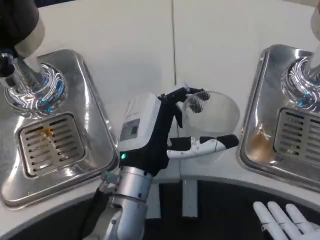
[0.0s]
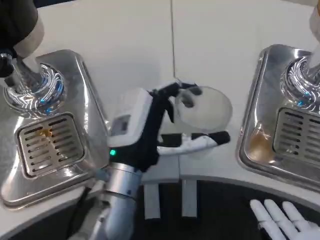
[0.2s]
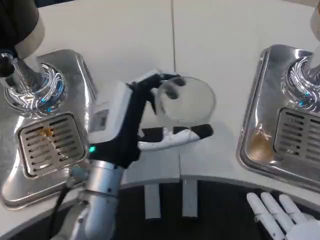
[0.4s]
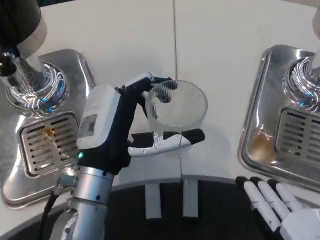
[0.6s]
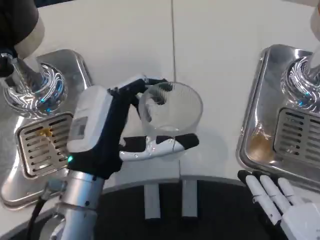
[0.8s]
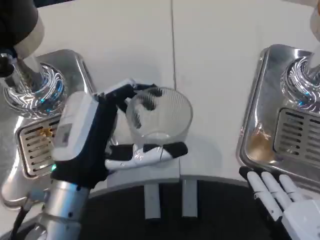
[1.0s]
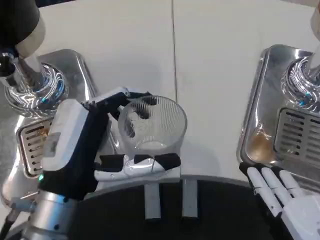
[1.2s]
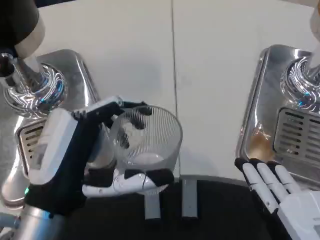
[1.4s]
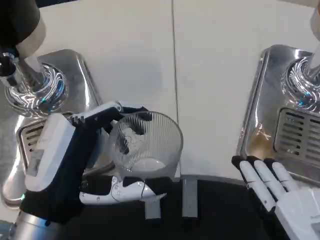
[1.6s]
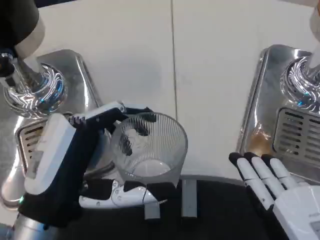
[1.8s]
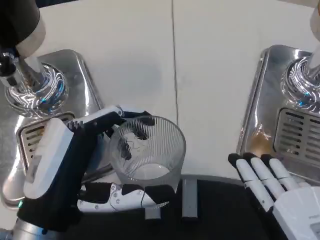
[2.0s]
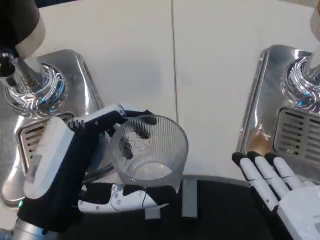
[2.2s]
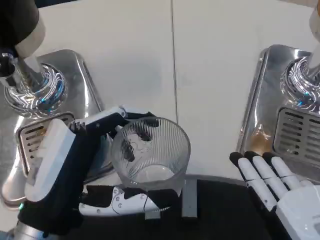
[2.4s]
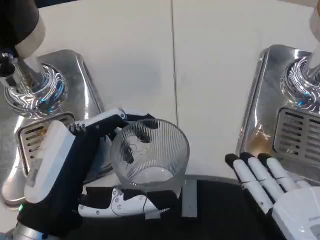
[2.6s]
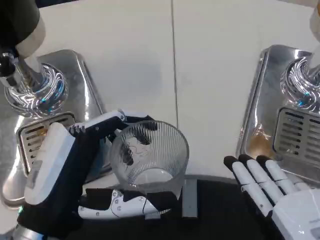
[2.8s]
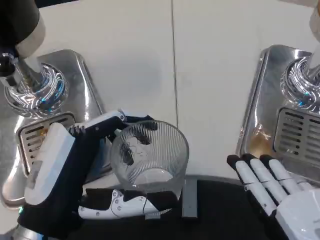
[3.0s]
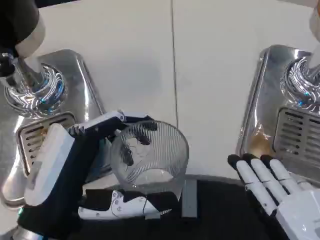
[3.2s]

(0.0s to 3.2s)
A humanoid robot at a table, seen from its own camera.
Task of the whole recording: Grasp the cup under the faucet to collect the drink, then remove the cup.
0.0s - 1.6s: The left hand heads to the left and backward, covering about 15 cm.
1.6s - 3.2s: The hands stay close to where they were, moving slightly.

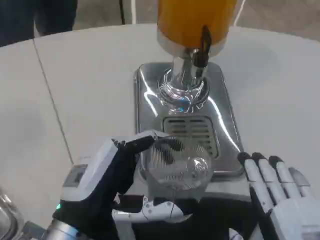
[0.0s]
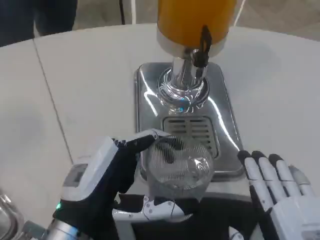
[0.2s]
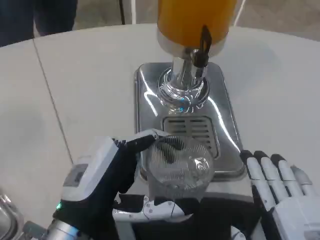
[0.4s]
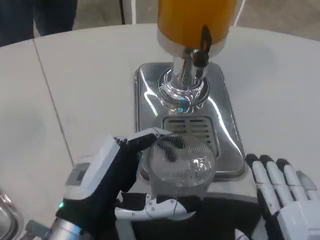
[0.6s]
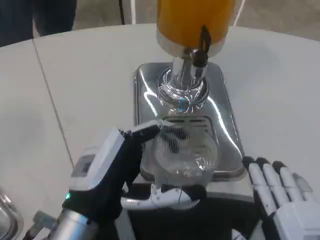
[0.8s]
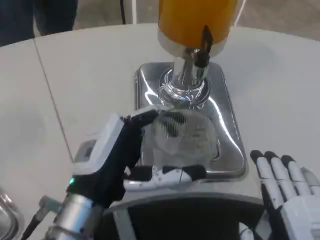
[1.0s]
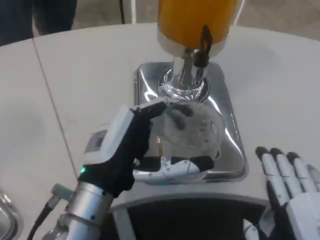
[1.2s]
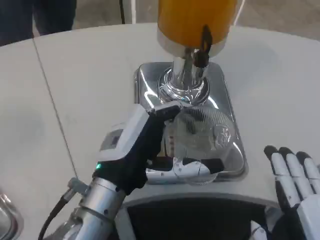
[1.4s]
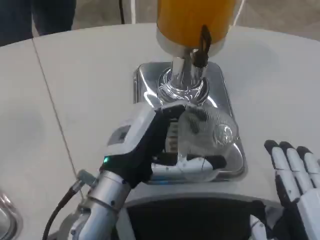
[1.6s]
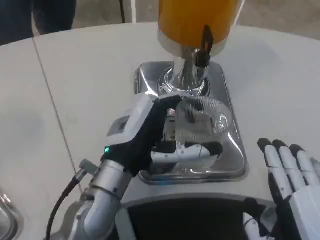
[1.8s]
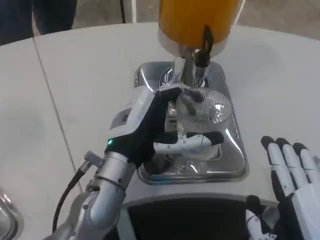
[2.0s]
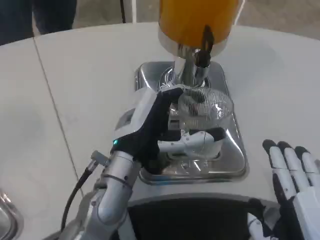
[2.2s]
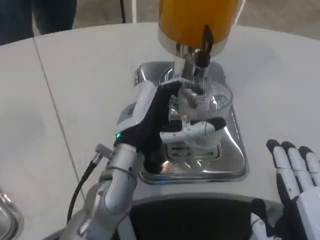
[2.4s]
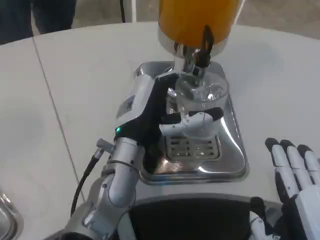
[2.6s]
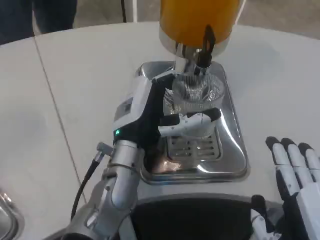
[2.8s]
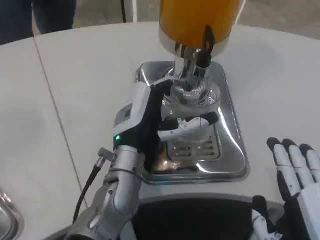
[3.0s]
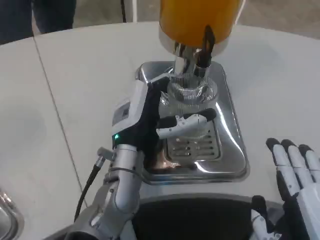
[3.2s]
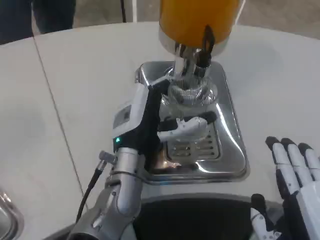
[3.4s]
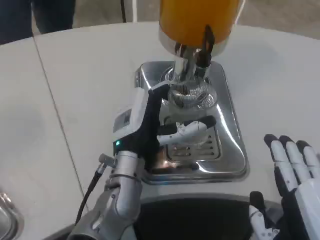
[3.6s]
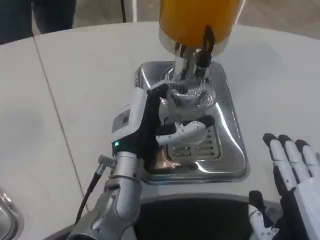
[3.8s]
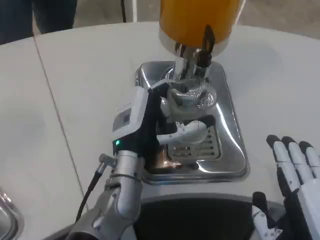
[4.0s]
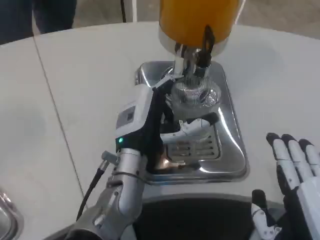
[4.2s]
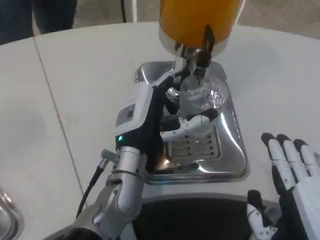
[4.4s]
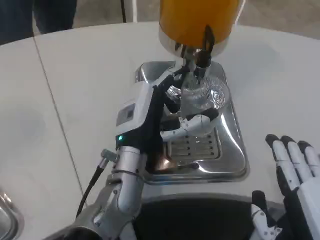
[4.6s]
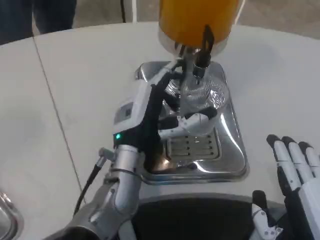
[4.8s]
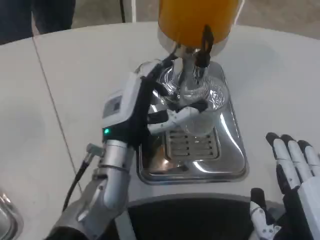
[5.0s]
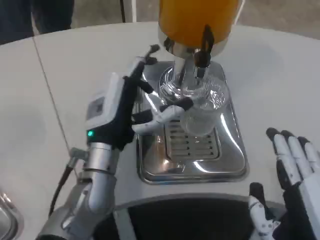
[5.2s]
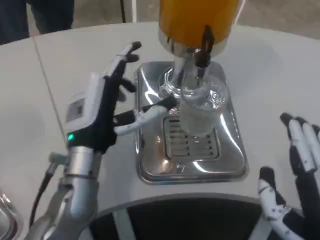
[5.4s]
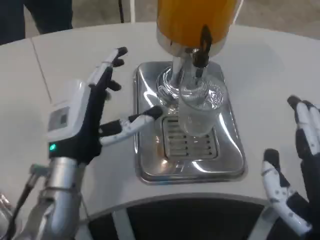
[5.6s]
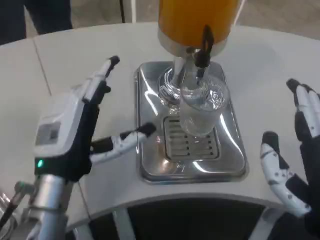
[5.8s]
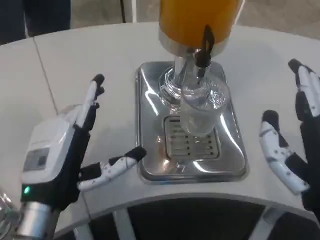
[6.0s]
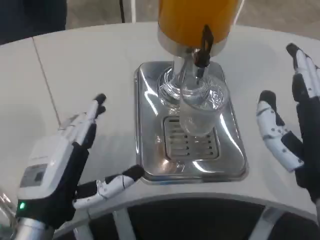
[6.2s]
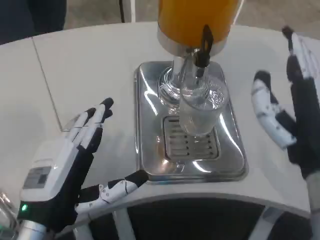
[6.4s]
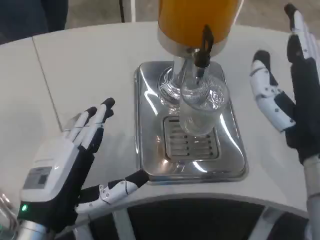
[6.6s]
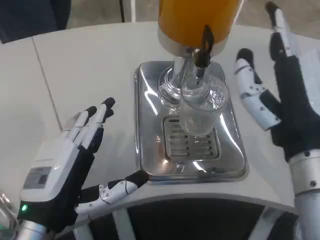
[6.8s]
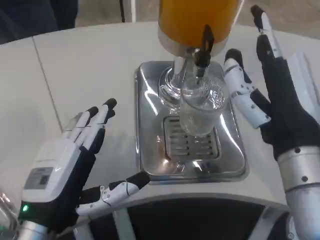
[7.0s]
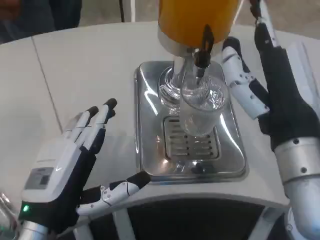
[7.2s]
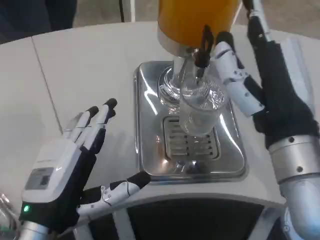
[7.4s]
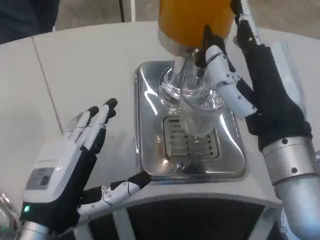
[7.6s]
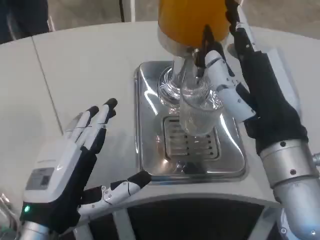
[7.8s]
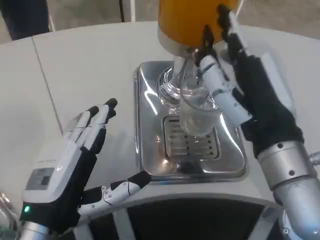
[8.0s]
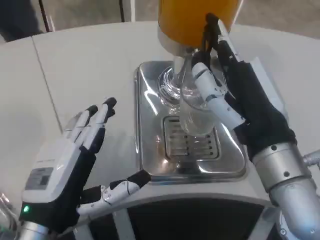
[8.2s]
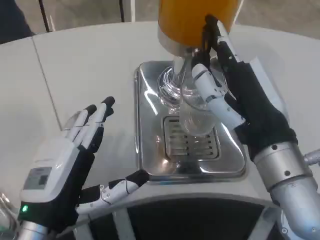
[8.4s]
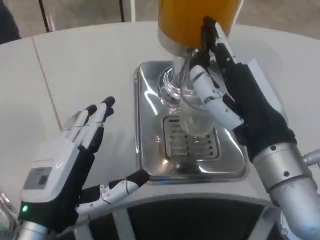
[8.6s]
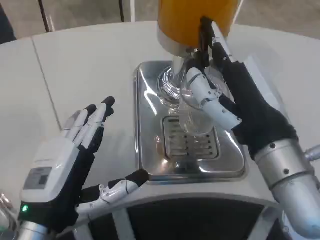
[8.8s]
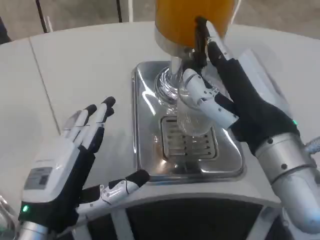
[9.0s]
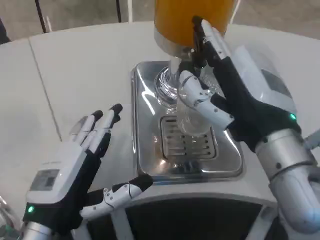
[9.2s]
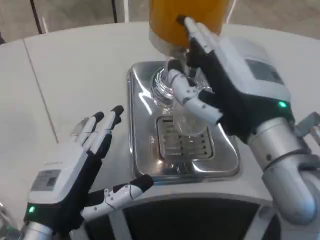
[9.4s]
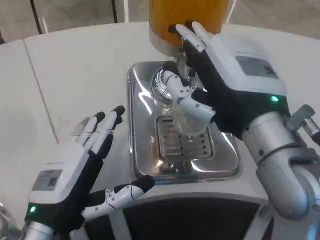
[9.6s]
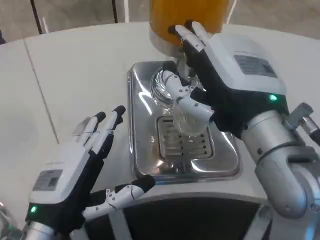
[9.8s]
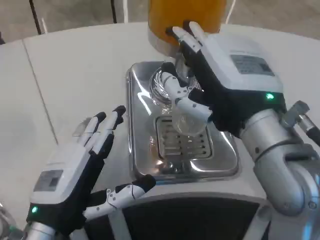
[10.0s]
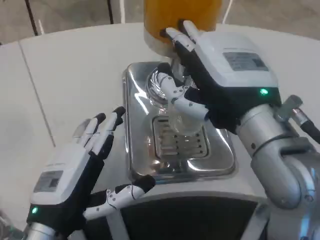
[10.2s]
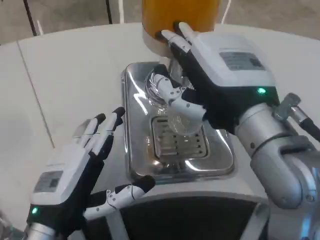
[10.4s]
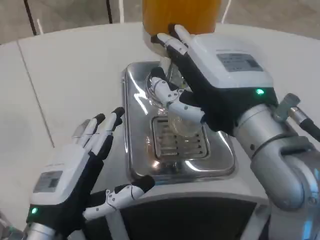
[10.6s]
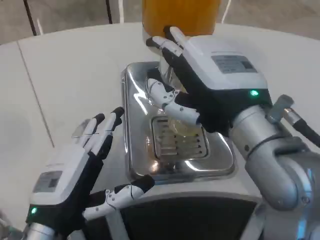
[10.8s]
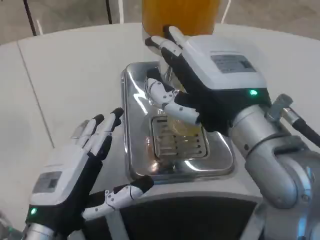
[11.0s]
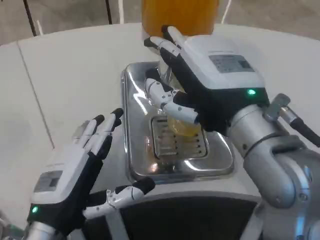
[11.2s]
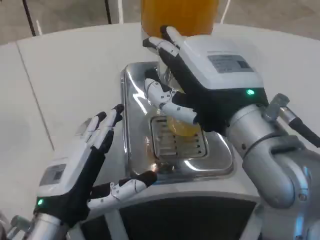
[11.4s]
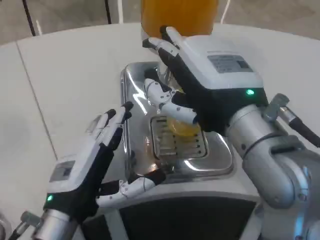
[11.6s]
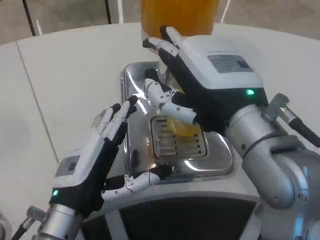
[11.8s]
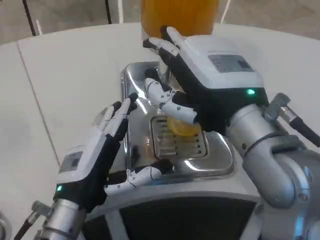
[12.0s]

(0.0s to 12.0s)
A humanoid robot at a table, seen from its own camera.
Task of the whole recording: Grasp the cup under the faucet to collect the drink, then remove the cup.
0.0s - 1.6s: The left hand heads forward, covering some 5 cm.
1.6s - 3.0s: The left hand moves forward, about 5 cm.
3.0s - 4.4s: Both hands stay put.
4.4s - 6.0s: The right hand changes place by approximately 5 cm; the left hand heads to the left and backward, covering roughly 15 cm.
6.0s - 7.6s: The right hand travels forward by about 5 cm.

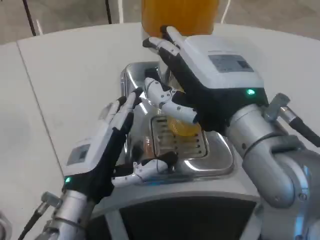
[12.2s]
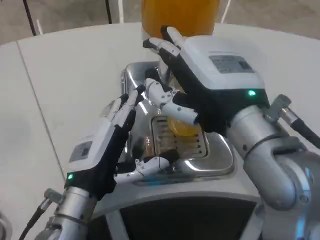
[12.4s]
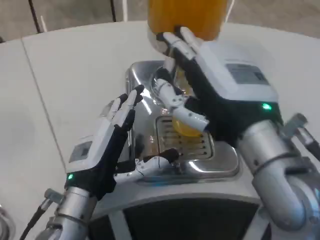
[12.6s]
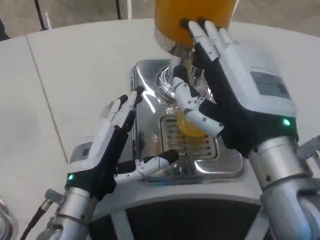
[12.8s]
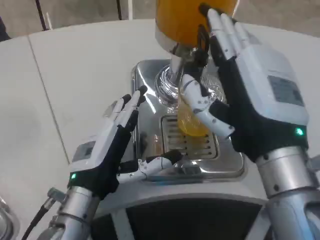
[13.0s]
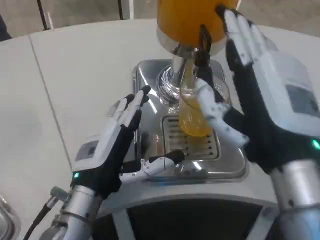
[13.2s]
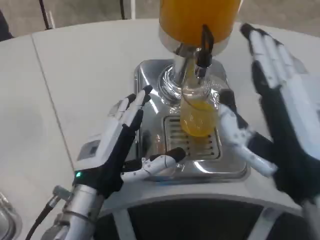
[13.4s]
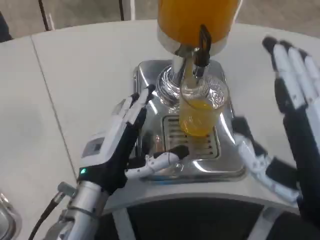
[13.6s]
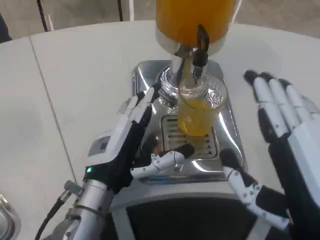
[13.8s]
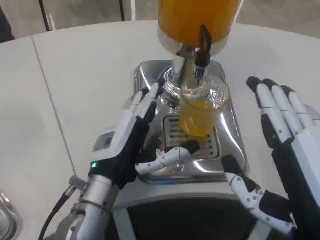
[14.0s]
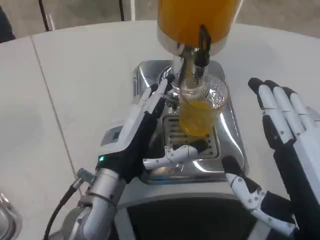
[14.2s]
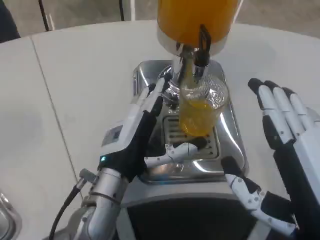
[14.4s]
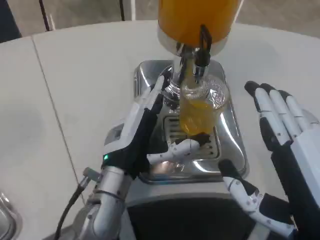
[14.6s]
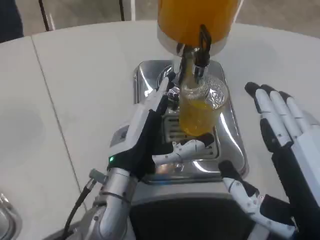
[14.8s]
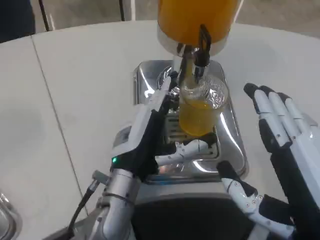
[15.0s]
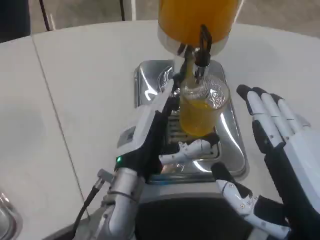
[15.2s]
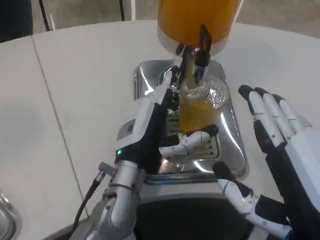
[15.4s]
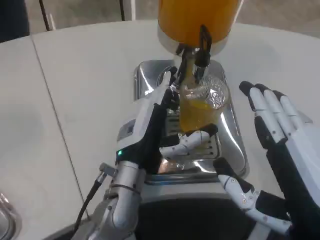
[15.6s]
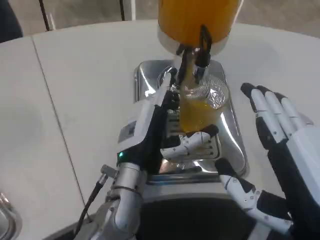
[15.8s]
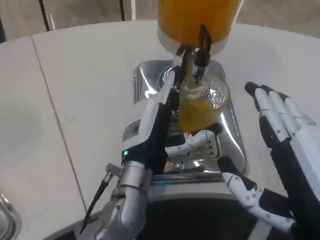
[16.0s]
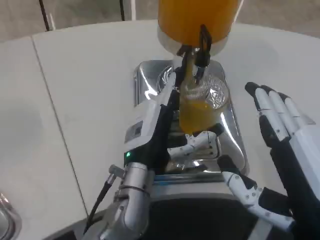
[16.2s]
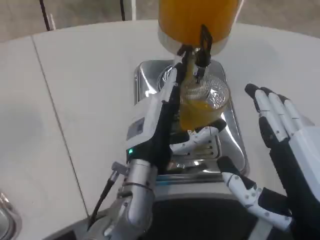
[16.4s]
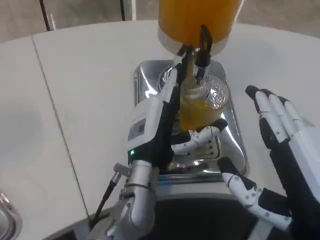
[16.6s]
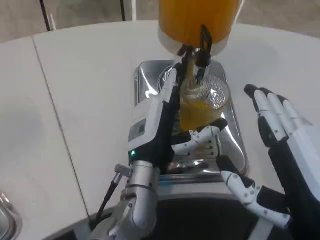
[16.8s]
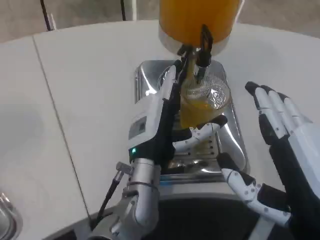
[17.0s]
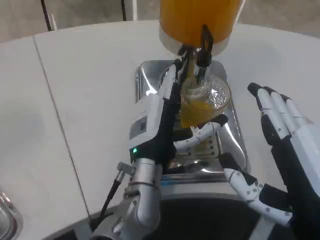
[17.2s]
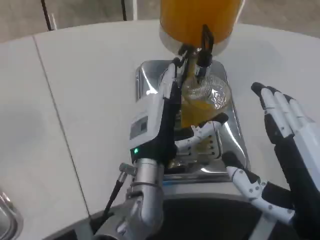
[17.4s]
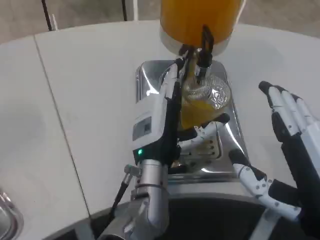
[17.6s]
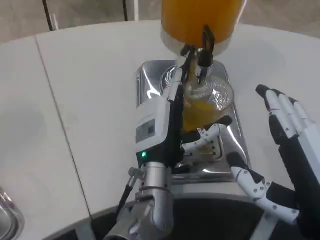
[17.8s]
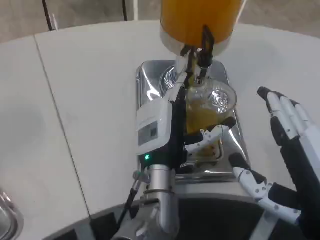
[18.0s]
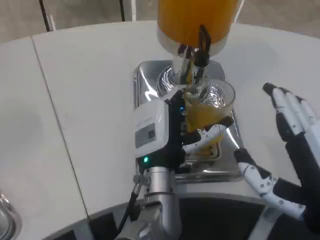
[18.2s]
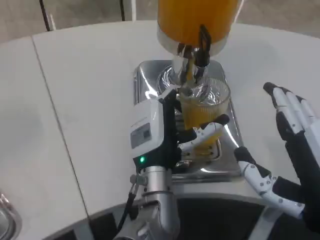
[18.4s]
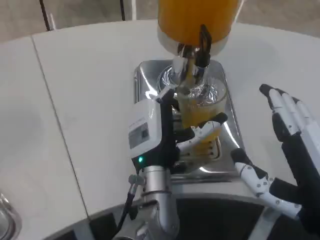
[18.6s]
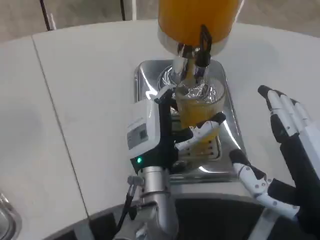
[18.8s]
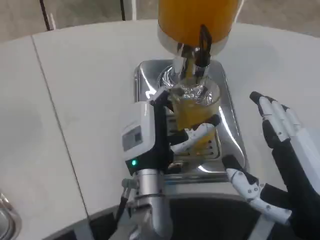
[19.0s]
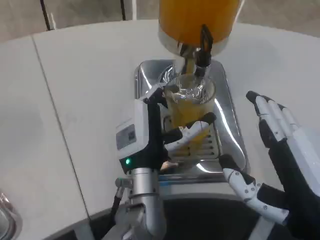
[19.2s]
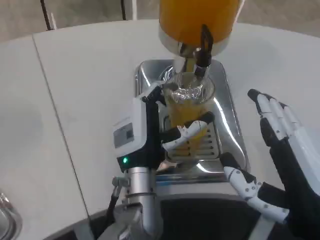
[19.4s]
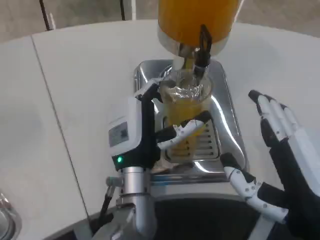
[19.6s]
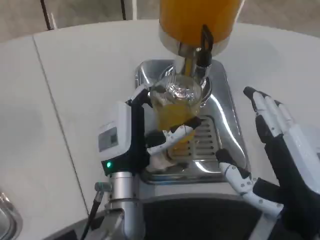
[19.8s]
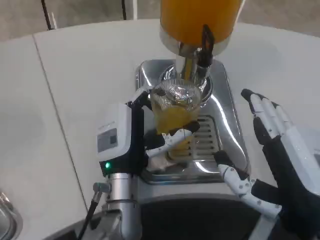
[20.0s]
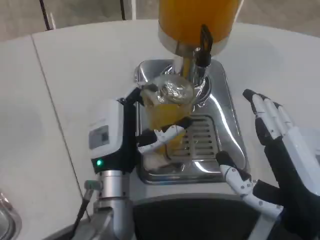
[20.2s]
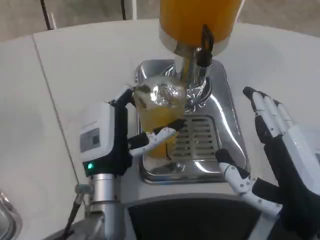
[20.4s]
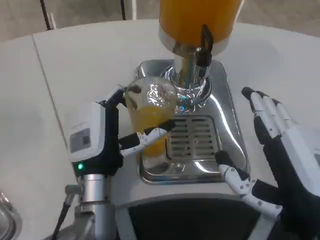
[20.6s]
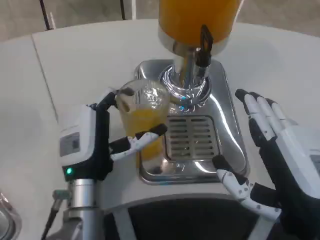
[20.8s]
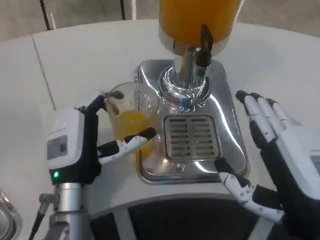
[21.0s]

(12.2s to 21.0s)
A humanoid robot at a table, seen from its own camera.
Task of the whole recording: Grasp the cup under the faucet to collect the drink, then remove the cup.
12.2s - 13.6s: The right hand moves backward, downward and to the right, approximately 15 cm.
13.6s - 15.2s: The left hand is displaced to the right by some 5 cm.
15.2s - 16.6s: The hands make only small movements.
19.6s - 21.0s: The left hand travels to the left by approximately 10 cm.
